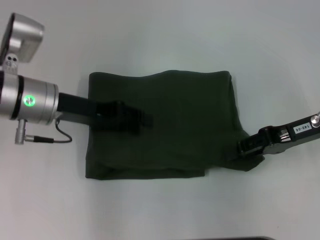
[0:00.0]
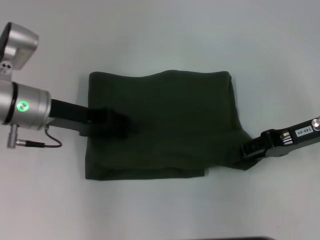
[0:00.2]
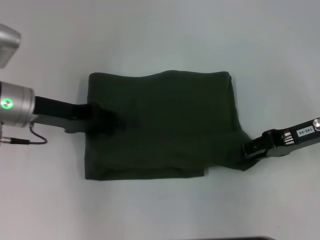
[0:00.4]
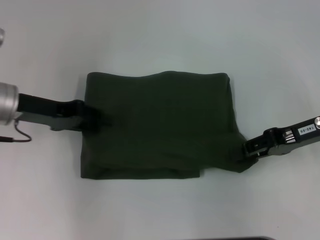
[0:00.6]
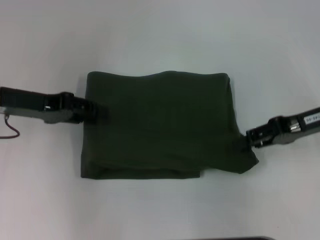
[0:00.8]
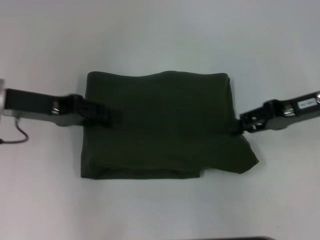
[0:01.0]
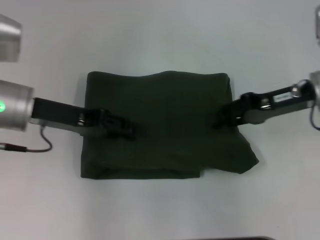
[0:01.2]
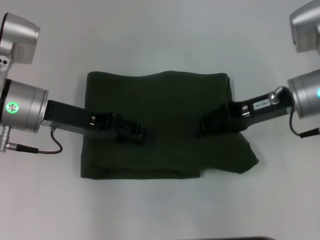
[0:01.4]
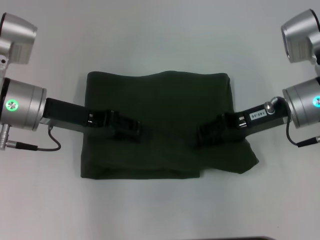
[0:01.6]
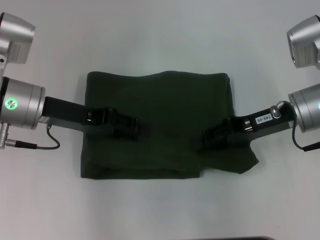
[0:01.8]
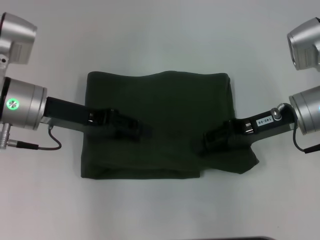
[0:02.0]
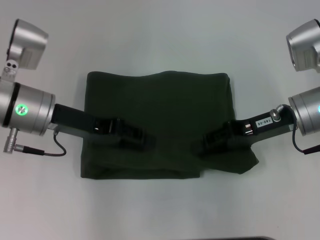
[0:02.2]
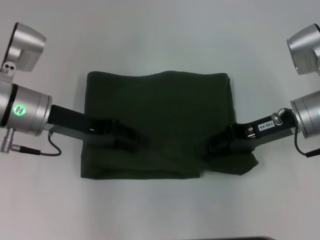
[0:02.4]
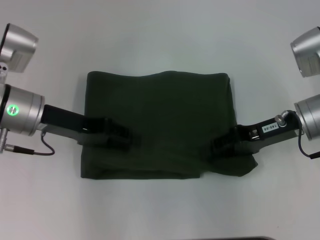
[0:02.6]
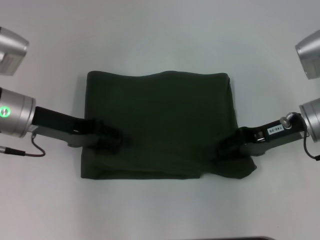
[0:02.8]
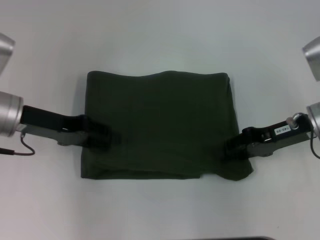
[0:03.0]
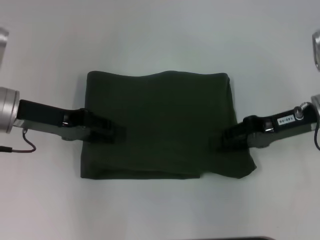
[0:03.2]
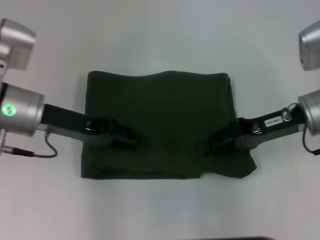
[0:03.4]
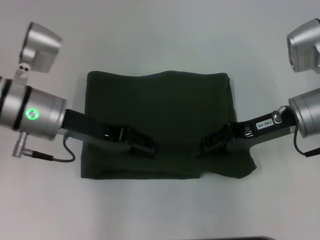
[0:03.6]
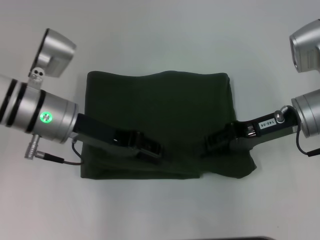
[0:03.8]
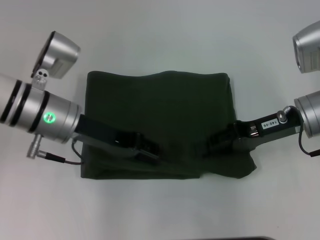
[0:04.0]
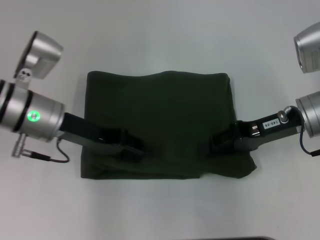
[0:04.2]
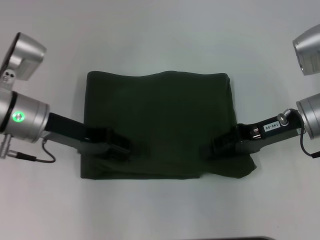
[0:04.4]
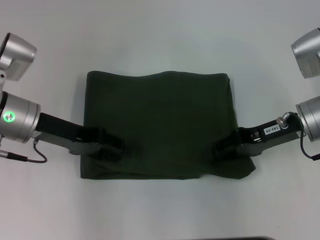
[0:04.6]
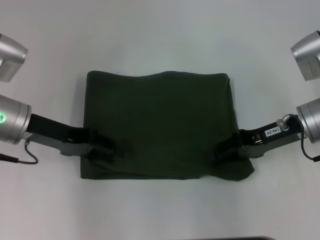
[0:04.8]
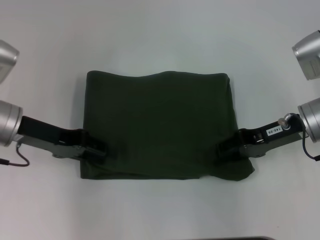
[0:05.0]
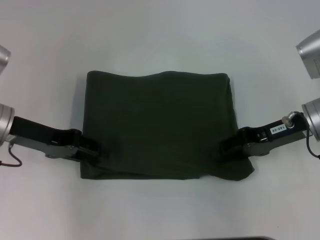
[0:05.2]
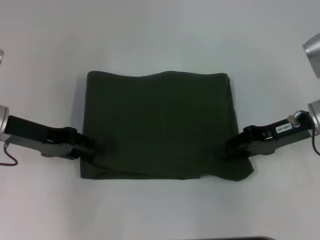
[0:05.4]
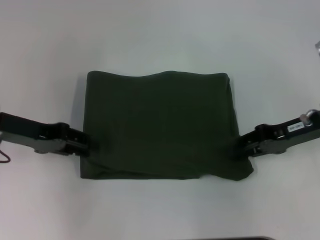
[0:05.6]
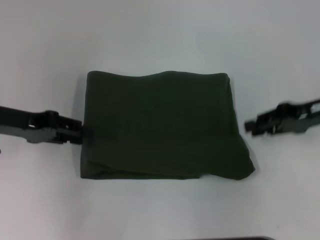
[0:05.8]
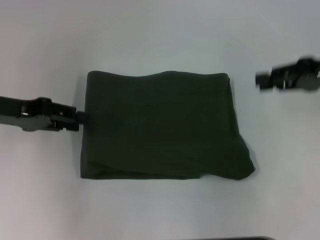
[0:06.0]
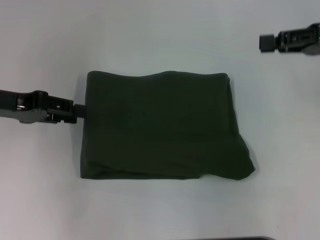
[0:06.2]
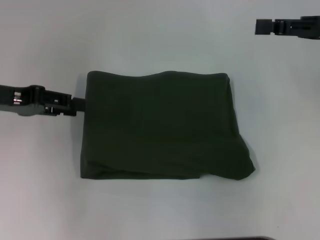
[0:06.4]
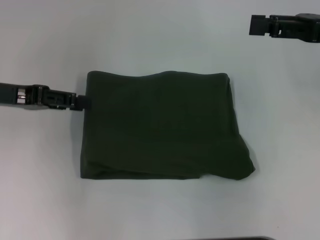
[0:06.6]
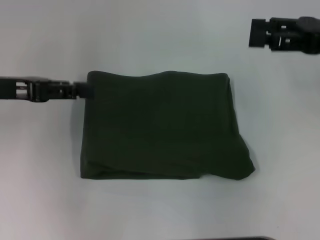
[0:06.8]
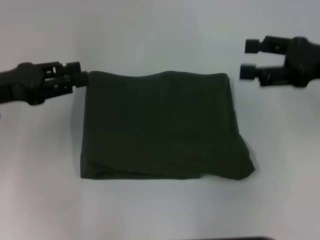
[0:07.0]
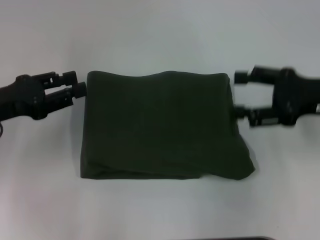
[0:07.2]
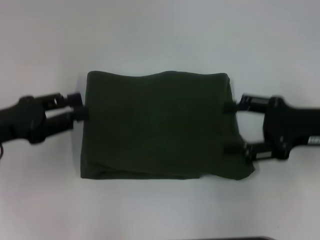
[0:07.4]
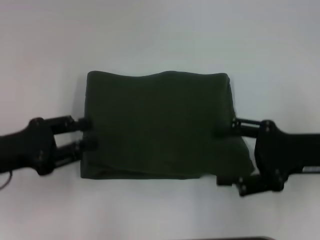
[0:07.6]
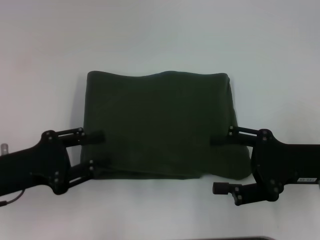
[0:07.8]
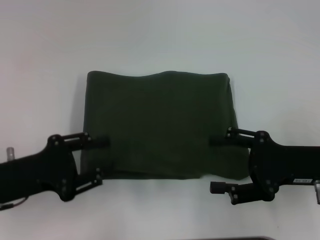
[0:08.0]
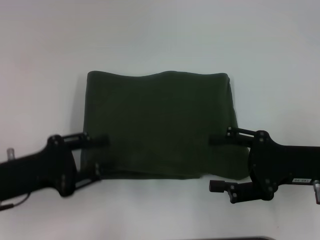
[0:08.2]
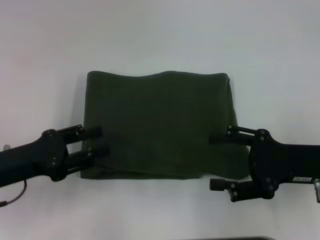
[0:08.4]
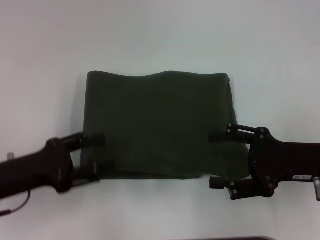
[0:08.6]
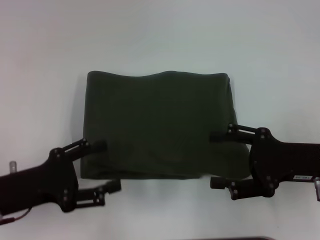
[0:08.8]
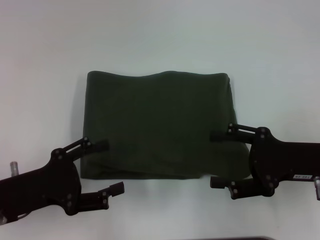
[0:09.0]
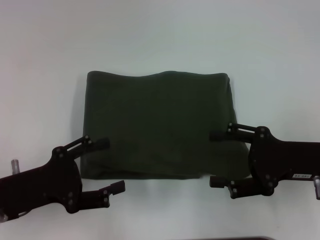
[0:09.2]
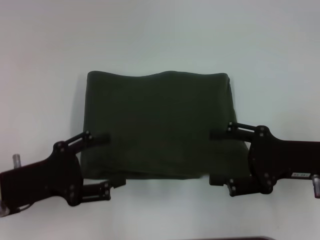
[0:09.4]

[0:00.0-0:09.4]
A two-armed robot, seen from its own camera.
0:00.0 to 0:01.6: The right gripper is displaced to the left by approximately 5 cm.
0:01.6 to 0:03.2: The grippers stay close to where they were, moving slightly.
0:04.8 to 0:06.2: The left gripper moves to the left, approximately 5 cm. Meanwhile the right gripper travels upward and to the right by about 15 cm.
0:06.2 to 0:07.8: The right gripper shifts some 15 cm backward, downward and to the left, and opens its fingers; the left gripper moves backward and downward, about 15 cm.
0:07.8 to 0:09.4: The left gripper opens its fingers.
